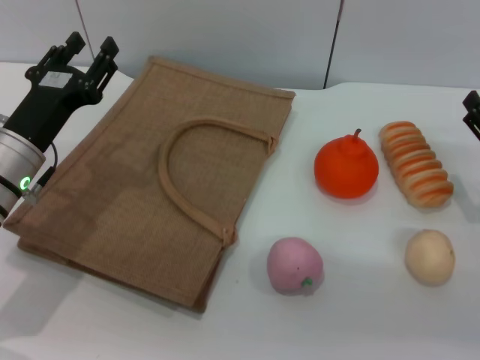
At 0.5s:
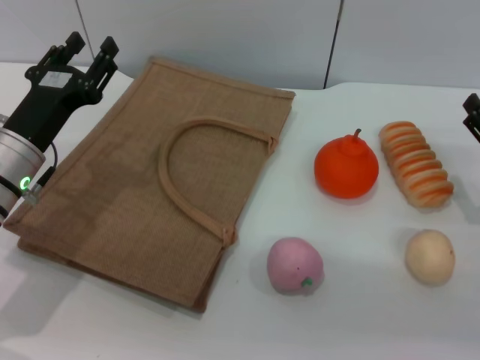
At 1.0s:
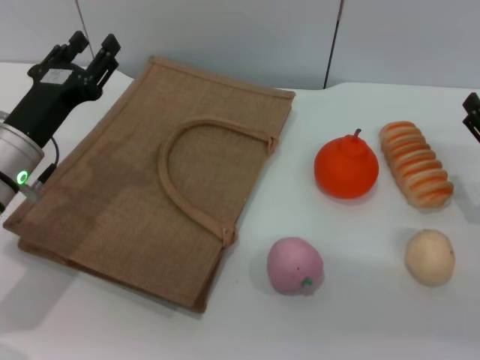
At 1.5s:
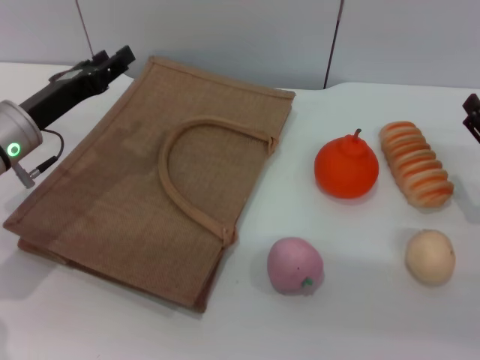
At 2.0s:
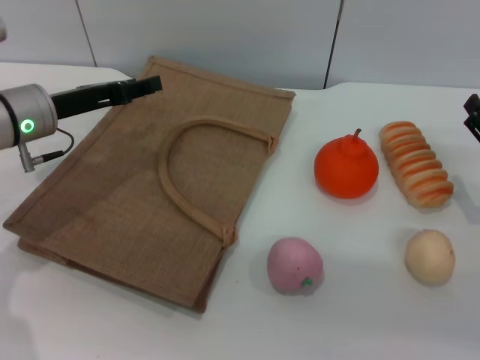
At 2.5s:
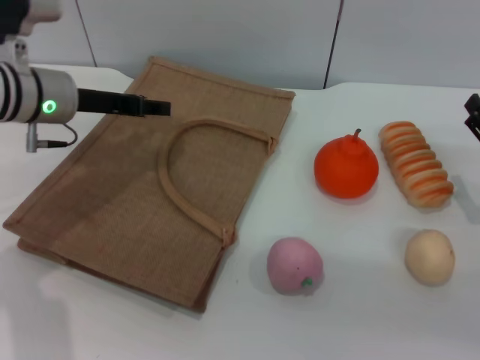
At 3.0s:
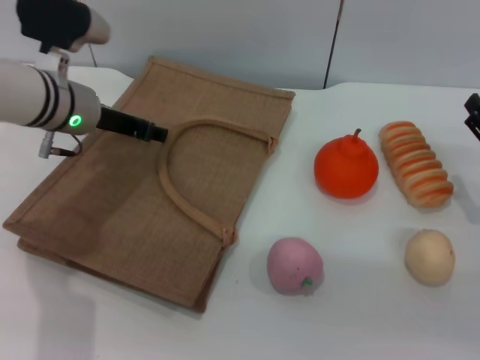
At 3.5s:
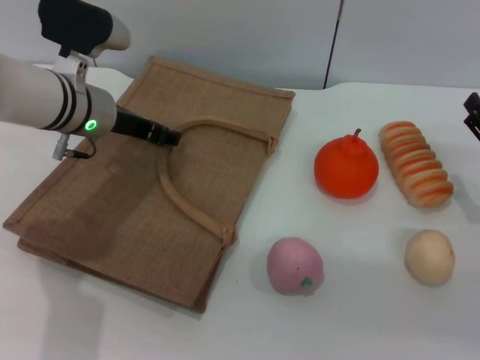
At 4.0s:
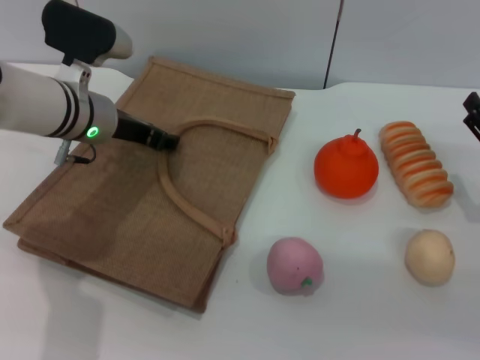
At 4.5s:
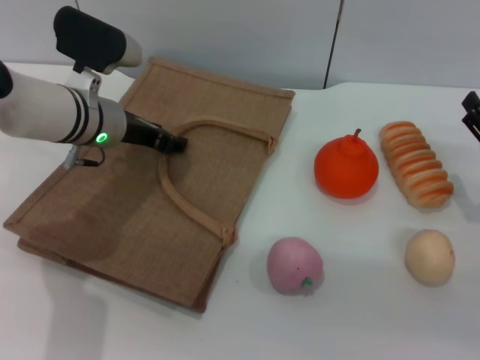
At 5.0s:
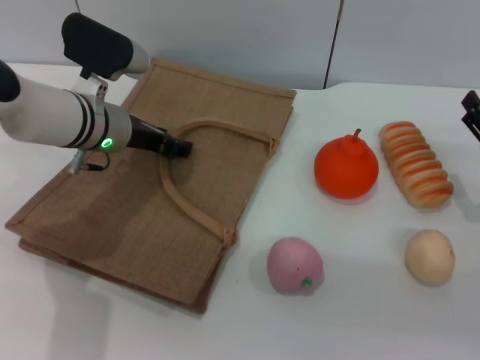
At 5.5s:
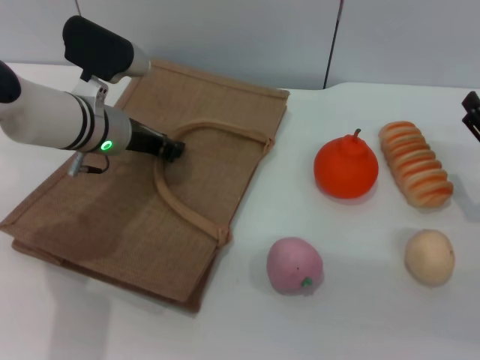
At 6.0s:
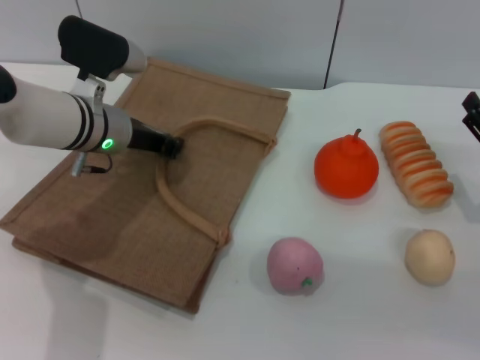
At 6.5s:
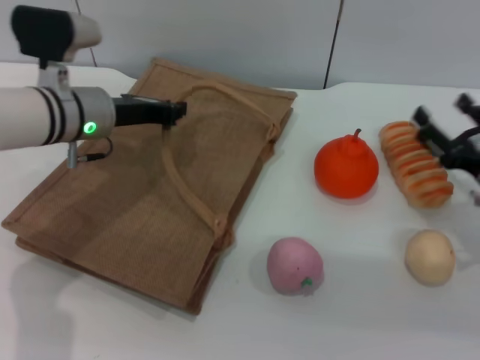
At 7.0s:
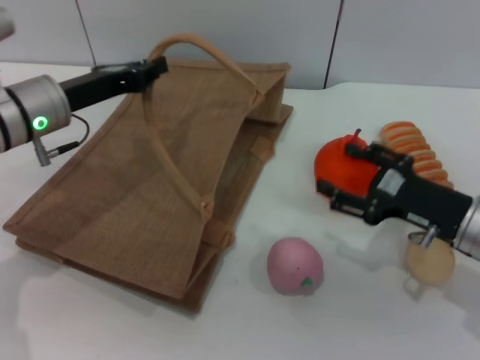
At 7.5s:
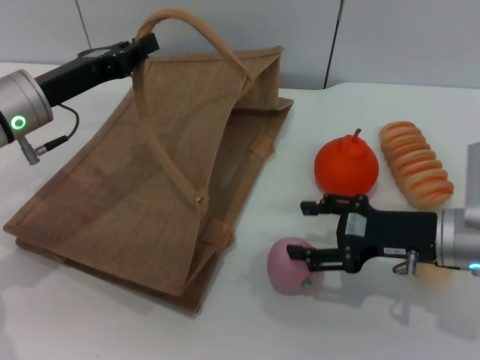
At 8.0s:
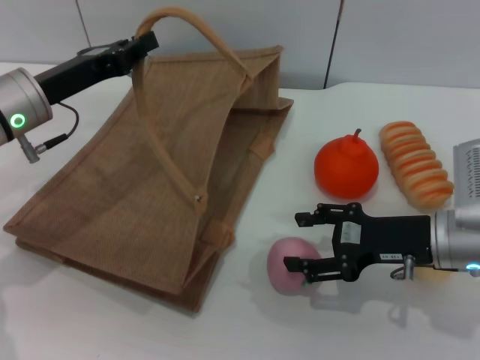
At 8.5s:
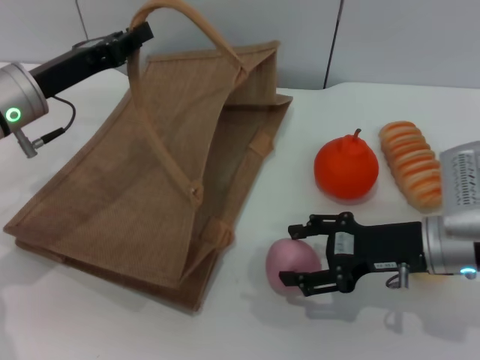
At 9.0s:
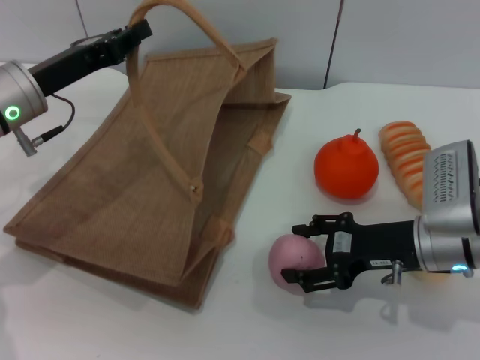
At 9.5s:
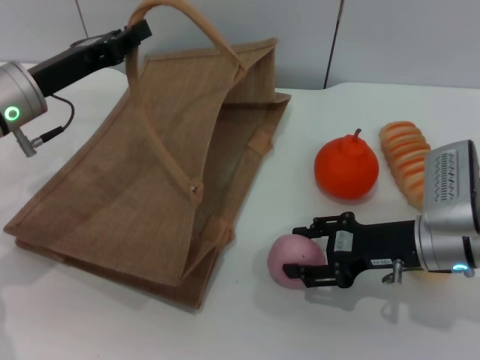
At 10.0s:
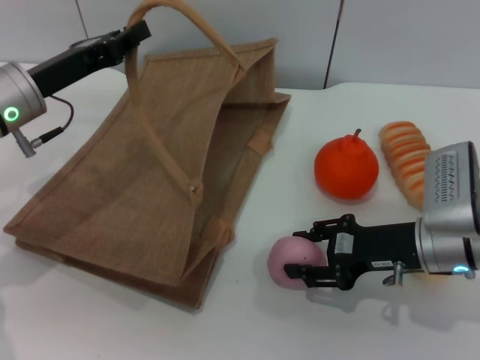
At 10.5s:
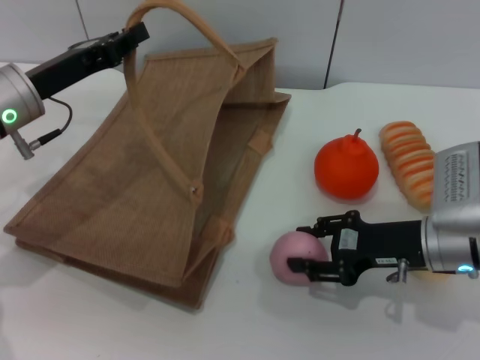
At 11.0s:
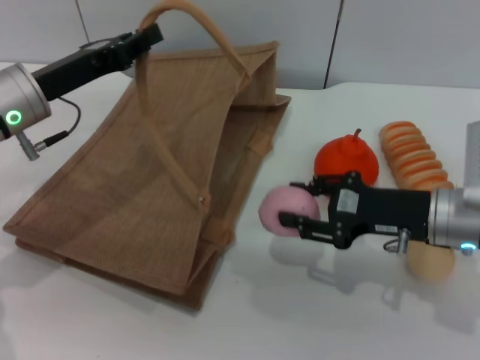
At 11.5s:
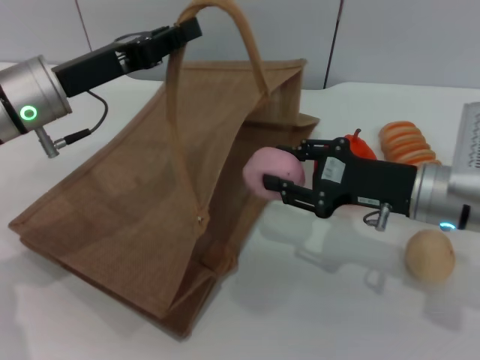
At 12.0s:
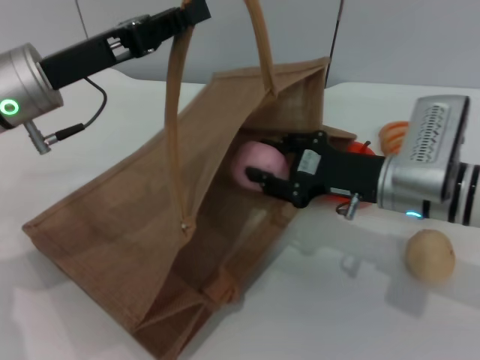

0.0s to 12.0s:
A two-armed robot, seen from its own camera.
Task of the whole recording: pick up the peach from the table and place it in the brown handbag.
Step, 0.0s to 6.0s: Lift the woven bag with the left gripper to open it.
Step, 6.5s to 10.5s: Pick up the peach with the right gripper.
0.0s to 2.0s: The left gripper goes about 5 cm forward.
2.0s to 4.0s: The left gripper moves to the right, roughly 5 cm.
4.0s to 6.0s: The left gripper closes.
6.0s to 8.0s: The two grippers go about 10 cm to the left.
8.0s to 10.0s: The right gripper closes up.
10.0s to 12.0s: The right gripper changes place by some 5 cm, and closes up; the left gripper shifts by about 5 cm.

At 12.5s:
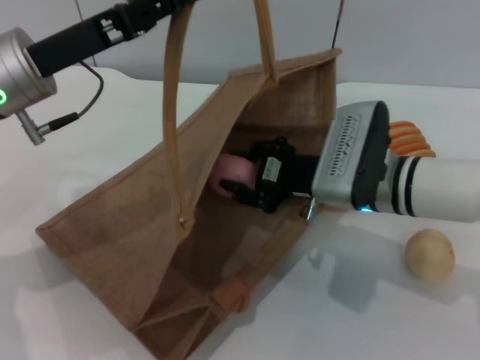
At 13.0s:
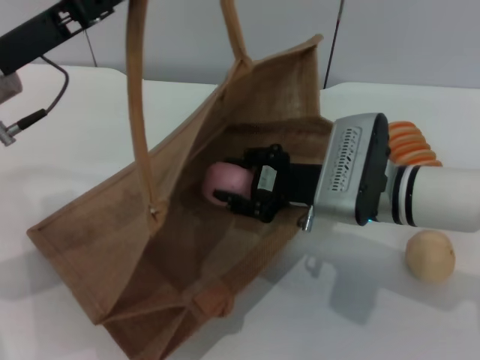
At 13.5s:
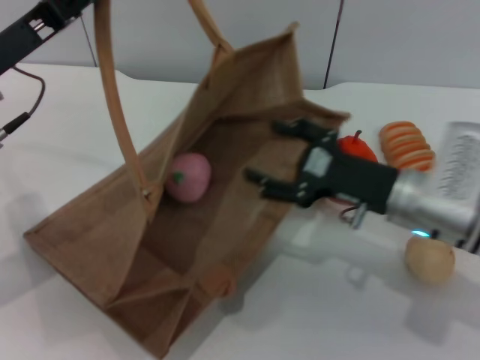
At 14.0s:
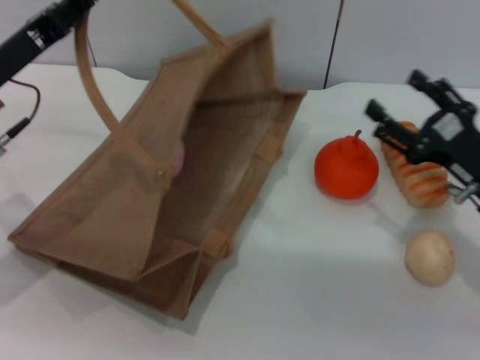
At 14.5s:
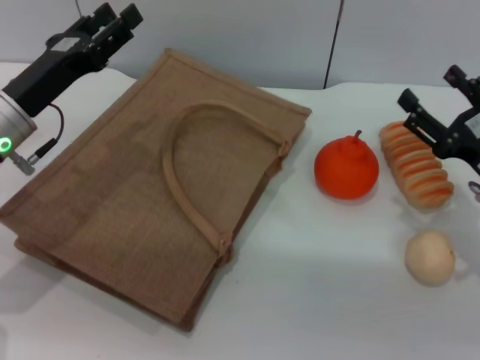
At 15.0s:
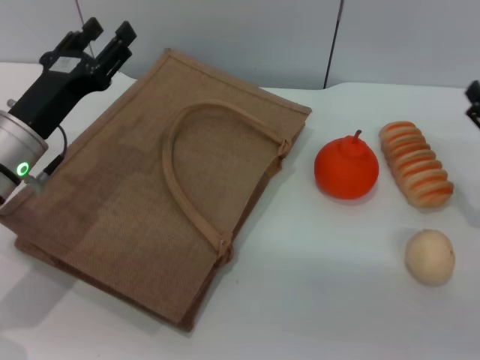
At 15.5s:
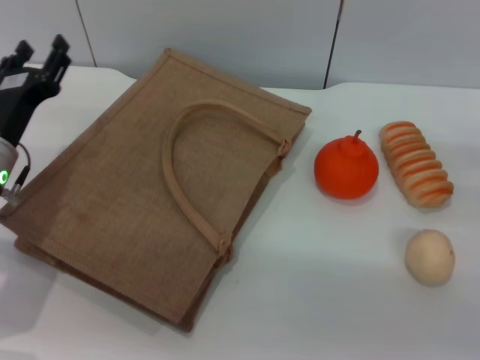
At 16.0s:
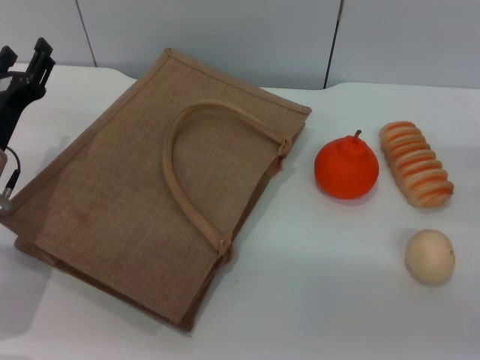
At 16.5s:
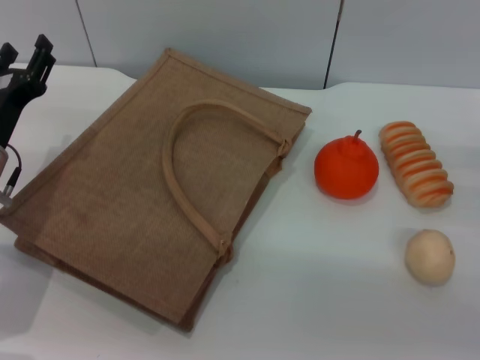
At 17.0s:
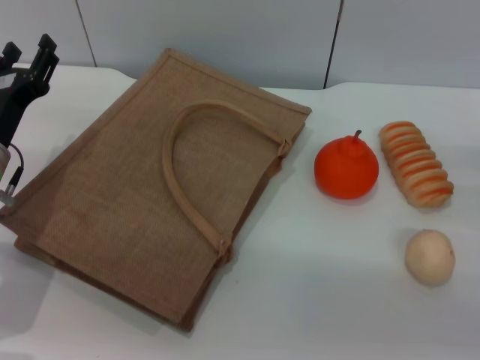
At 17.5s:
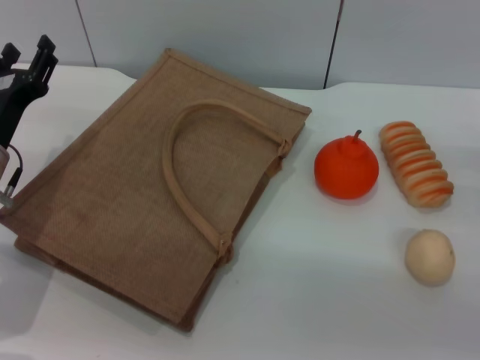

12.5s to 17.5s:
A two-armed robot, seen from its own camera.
Task of the whole recording: pick up the peach from the table and place it in the brown handbag.
Step, 14.0s to 15.5s: Lower the woven bag with the left gripper to close it.
12.5s to 15.0s: The right gripper goes roughly 20 cm to the right, and opens its fingers; the left gripper heads downward, covering roughly 10 cm, and opens its fingers.

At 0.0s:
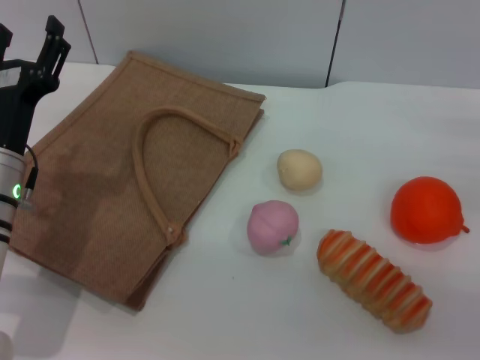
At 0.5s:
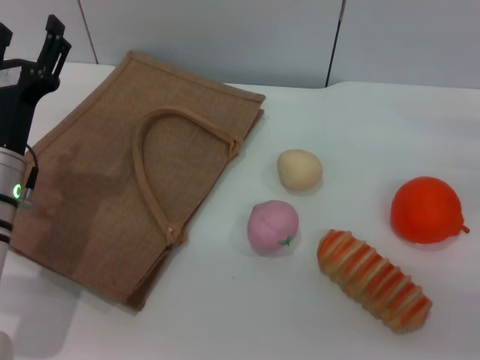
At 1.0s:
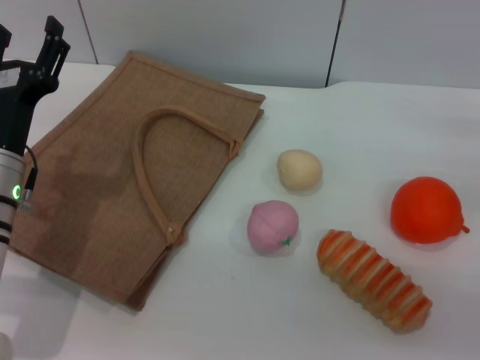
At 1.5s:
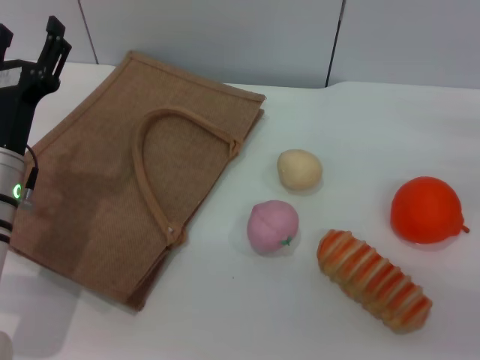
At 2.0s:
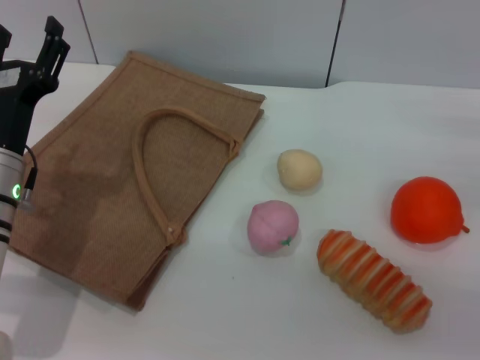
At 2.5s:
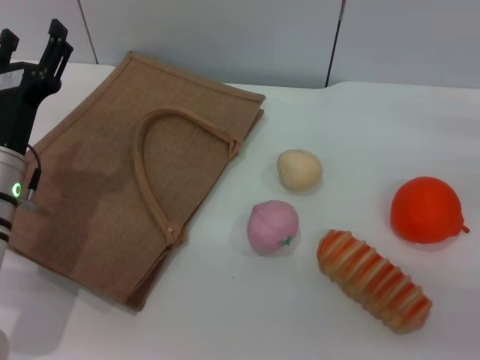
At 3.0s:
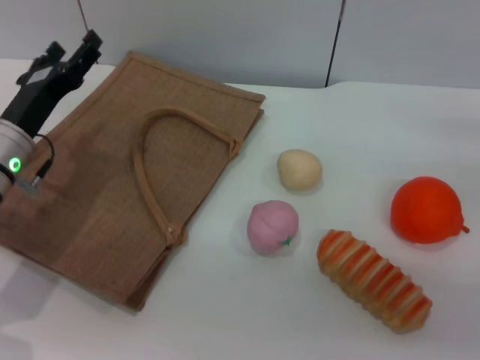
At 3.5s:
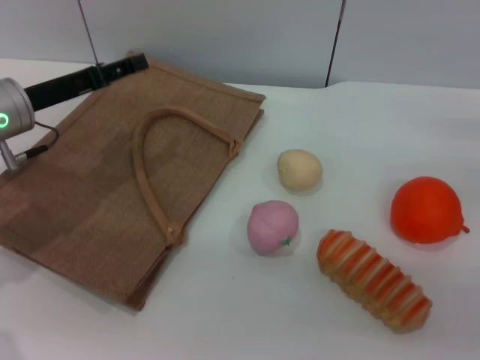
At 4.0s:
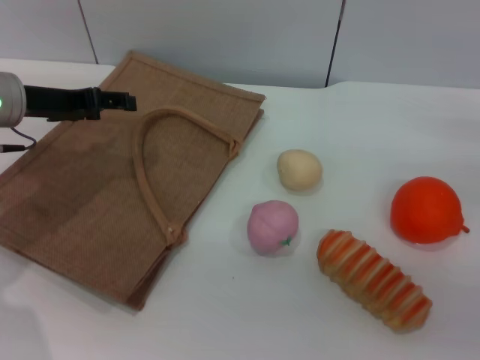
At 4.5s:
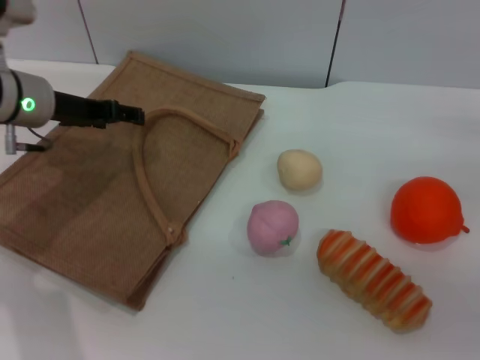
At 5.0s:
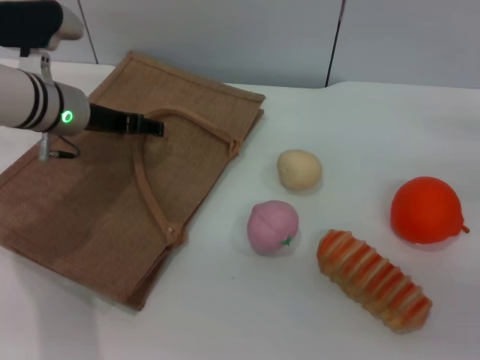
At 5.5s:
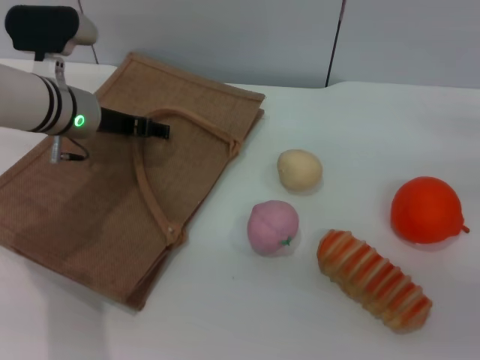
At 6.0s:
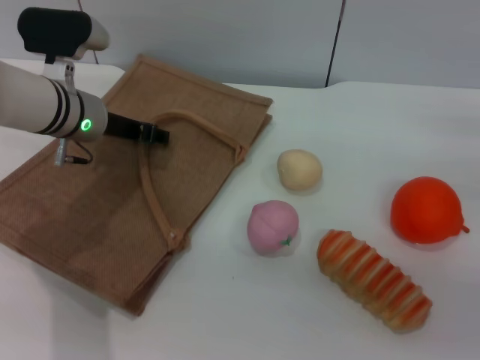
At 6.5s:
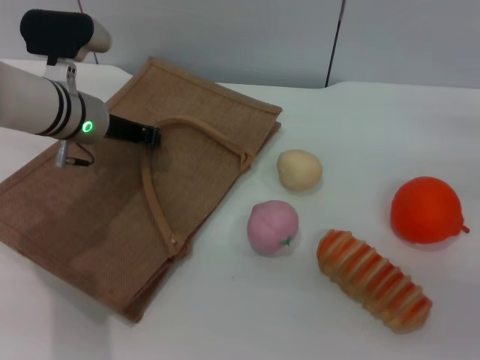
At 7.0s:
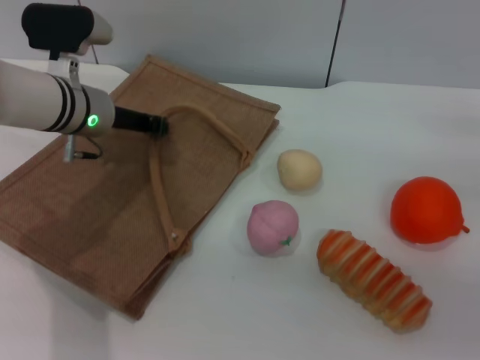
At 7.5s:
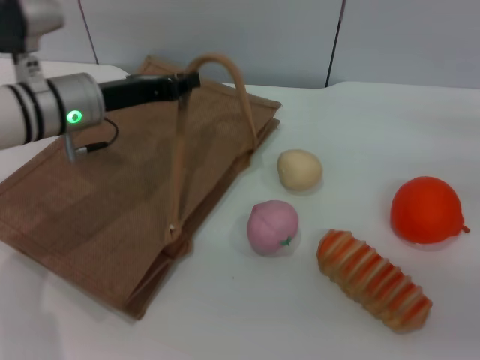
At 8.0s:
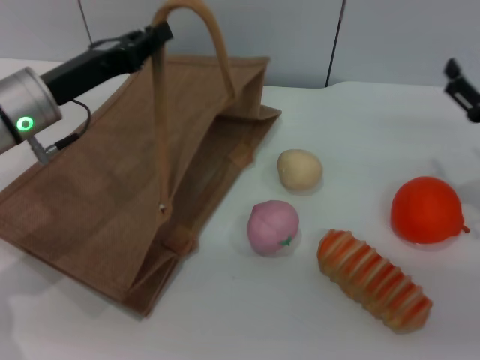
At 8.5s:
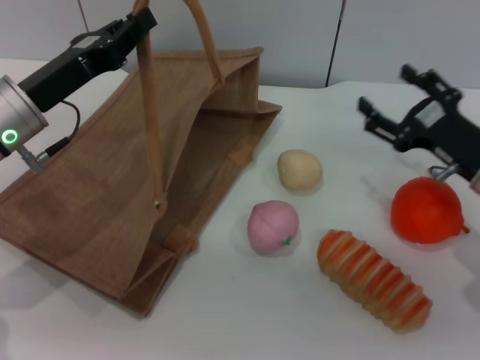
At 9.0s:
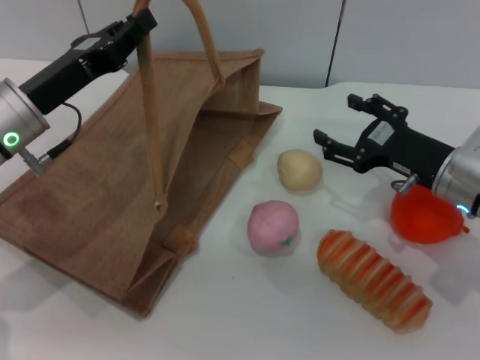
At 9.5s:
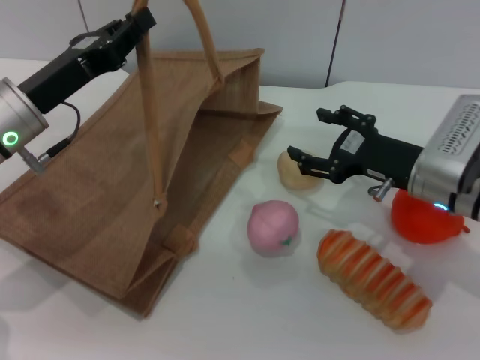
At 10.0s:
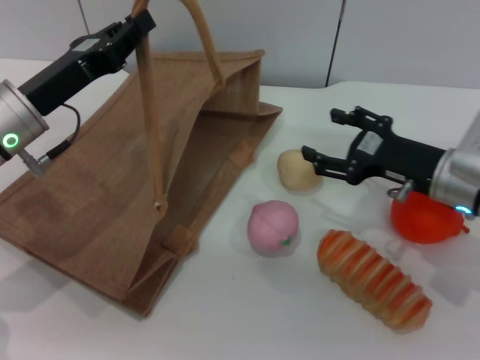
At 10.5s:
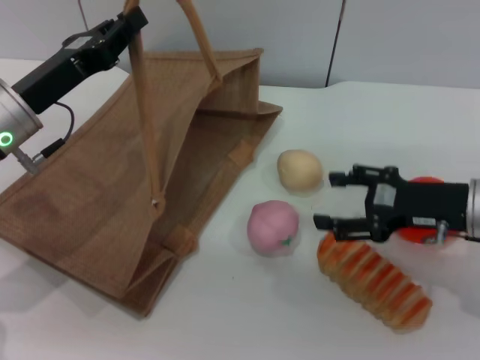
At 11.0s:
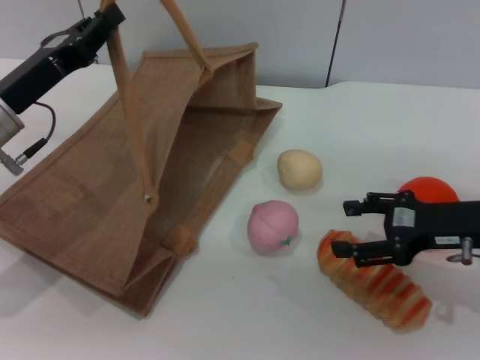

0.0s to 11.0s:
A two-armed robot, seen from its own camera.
Task of the whole recording: pick up the bread and egg yolk pastry from the table and place it in the brown handbag.
Step, 0.0s to 8.0s: Lift the woven bag with the left gripper to open it.
0.0s to 2.0s: Neither gripper changes place.
2.0s to 3.5s: The left gripper heads forward and upward, covering roughly 10 cm.
3.5s to 5.5s: The left gripper shifts approximately 10 cm to the right and forward.
5.5s to 7.5s: The left gripper closes its fingers.
7.5s to 9.0s: The right gripper shifts roughly 10 cm to the left. The left gripper goes about 5 cm backward.
9.0s to 11.0s: The right gripper shifts by about 5 cm.
